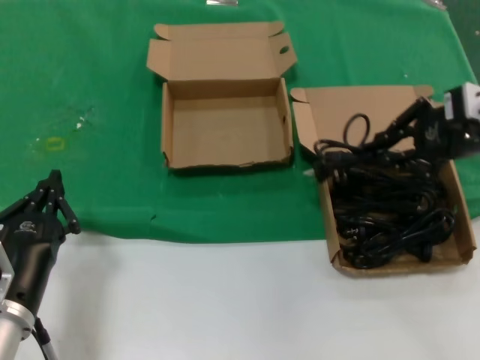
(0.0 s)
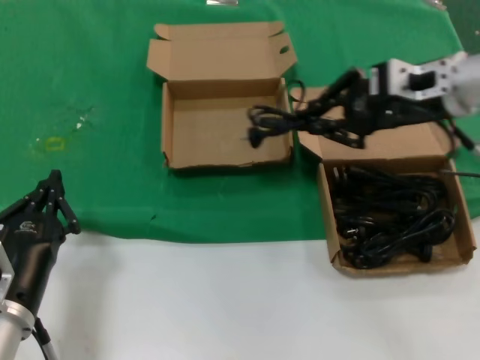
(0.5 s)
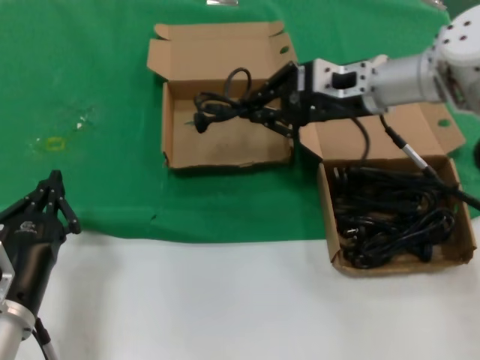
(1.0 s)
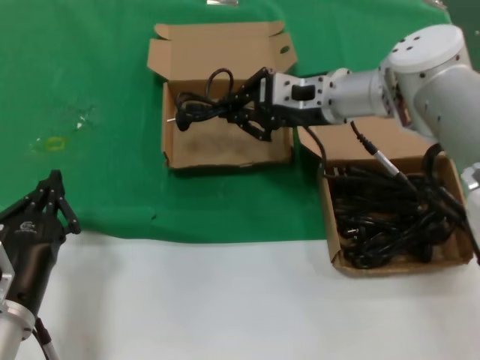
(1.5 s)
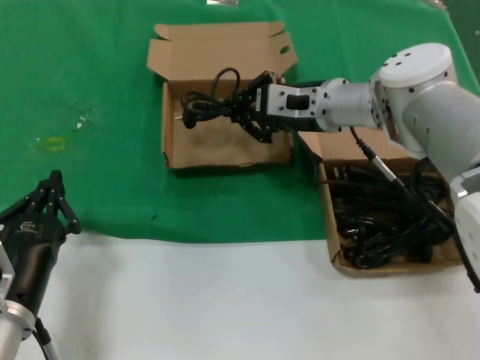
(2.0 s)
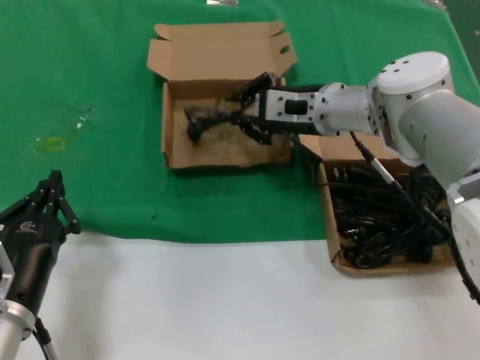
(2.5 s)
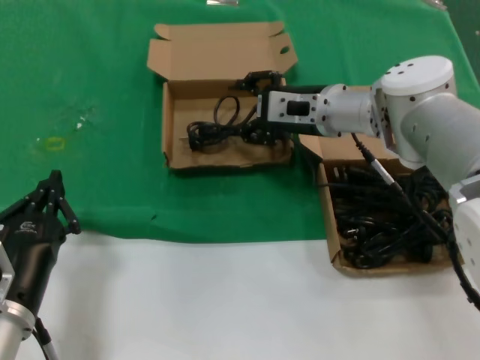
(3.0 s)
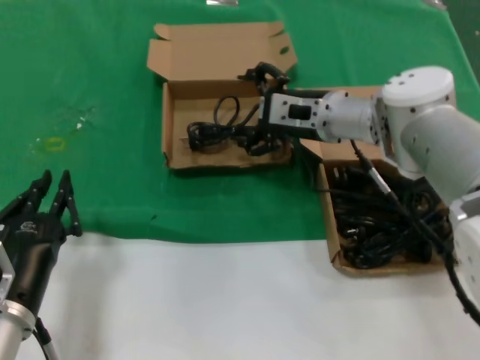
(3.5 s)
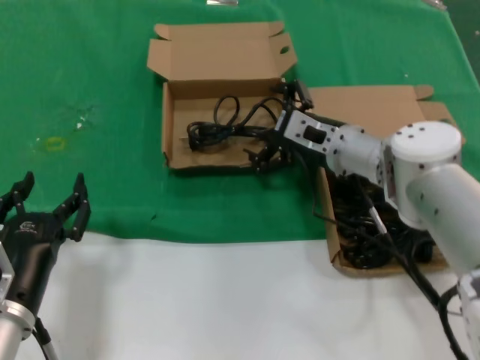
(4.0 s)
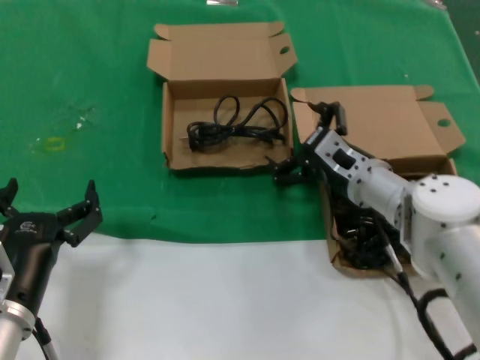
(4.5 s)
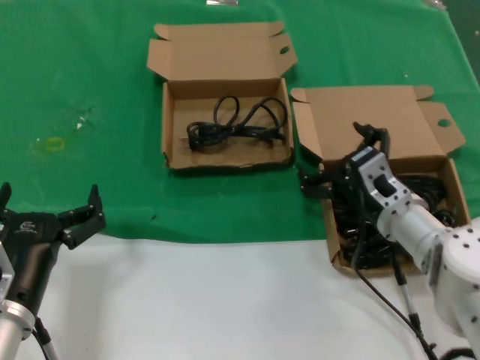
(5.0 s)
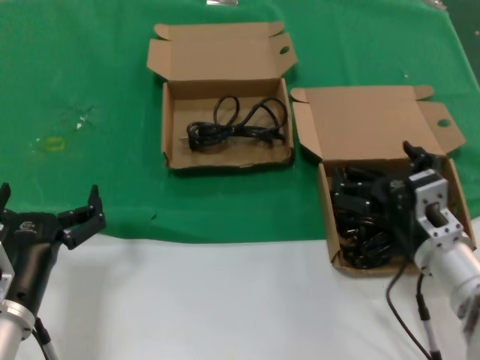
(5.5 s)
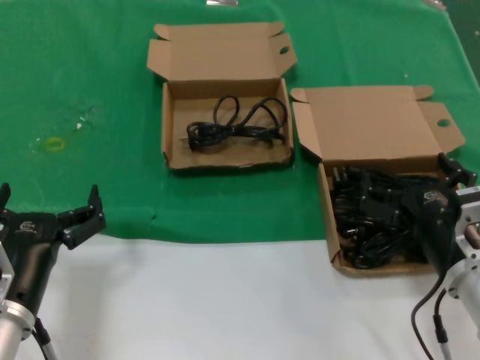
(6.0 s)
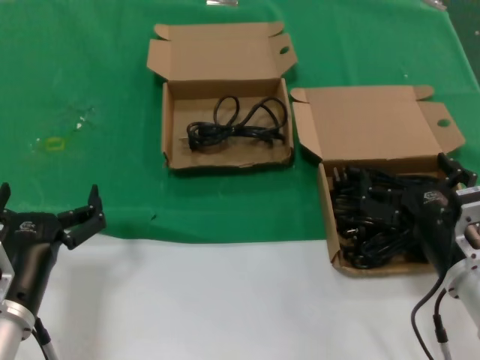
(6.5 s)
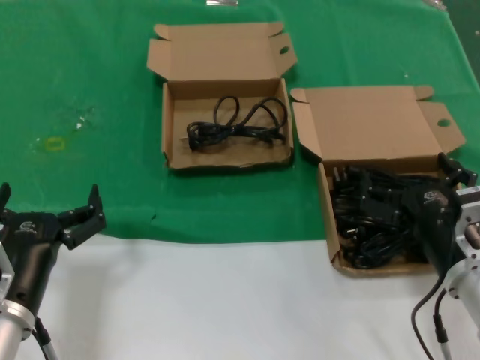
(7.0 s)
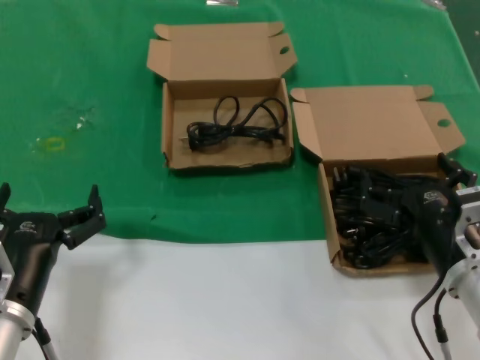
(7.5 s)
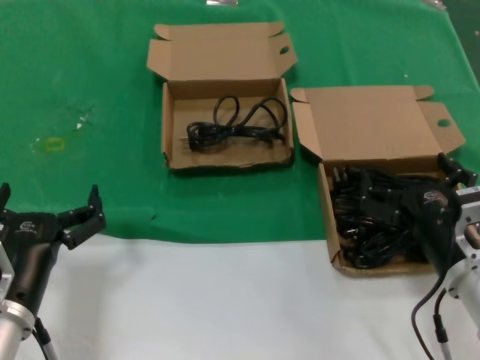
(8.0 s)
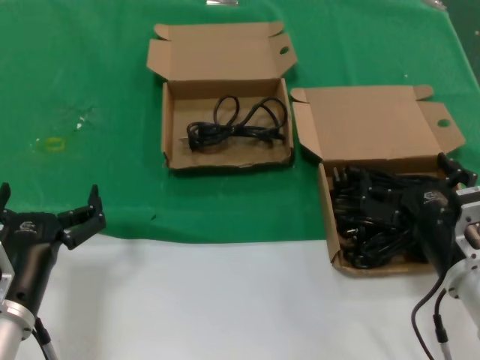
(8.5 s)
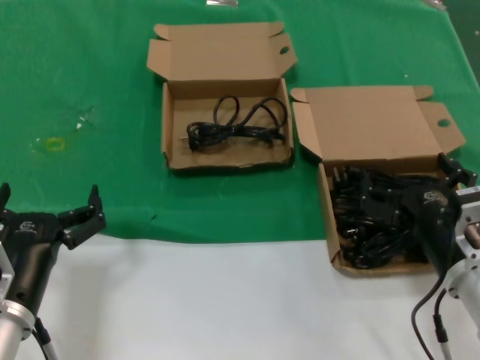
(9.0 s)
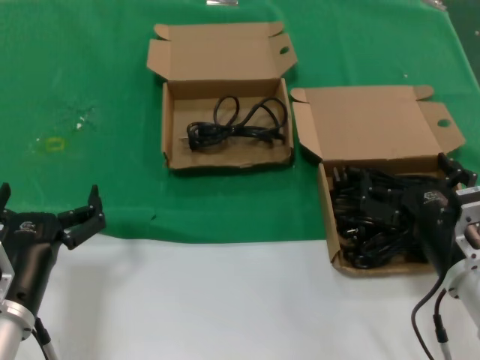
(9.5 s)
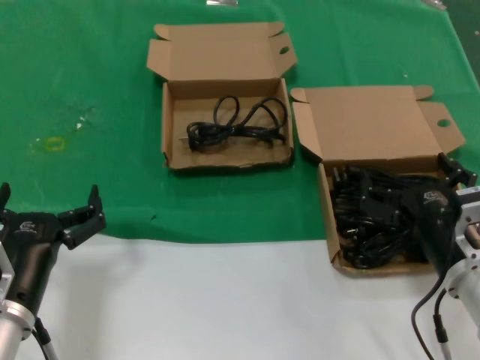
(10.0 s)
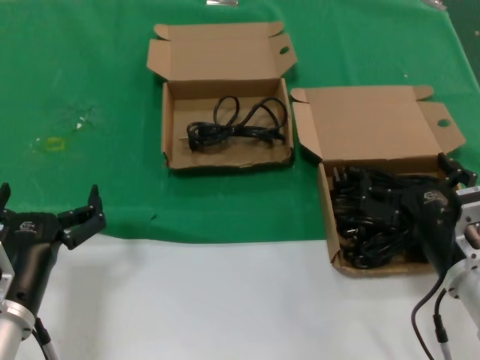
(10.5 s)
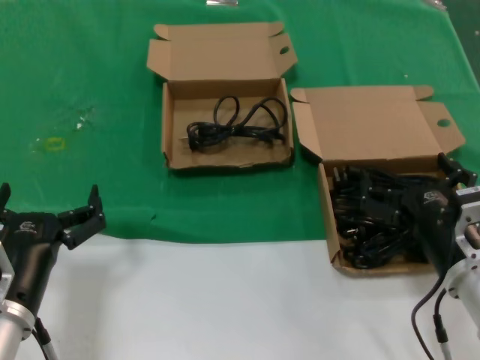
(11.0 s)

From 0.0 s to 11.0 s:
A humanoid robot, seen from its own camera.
Task of the whole recording: take the parts from the box containing them and put them into an empty box.
Step, from 0.0 s to 2.5 s: Place the data cable in the another box.
From 0.0 s to 2.0 s: The right hand travels to the left and forward by approximately 25 cm.
From 2.0 s to 3.5 s: The hands stay close to where they were, moving slightly.
From 3.5 s to 5.5 s: The right hand travels backward, downward and to the right by approximately 25 cm.
From 5.5 s to 7.5 s: The right hand travels backward by about 5 cm.
From 7.5 s to 11.0 s: Both hands stay put.

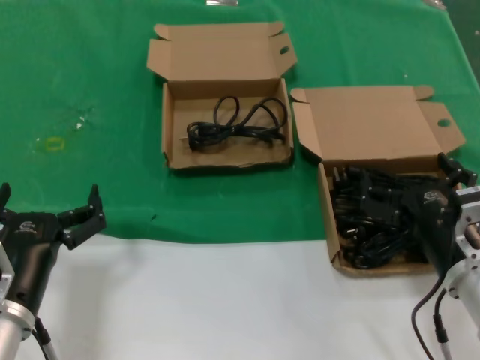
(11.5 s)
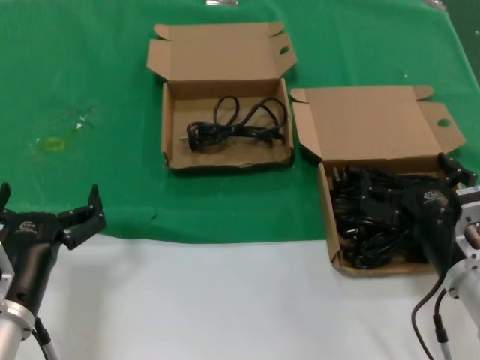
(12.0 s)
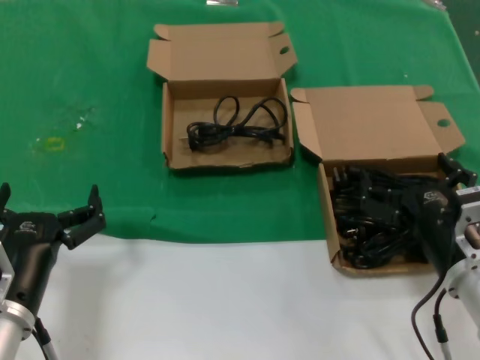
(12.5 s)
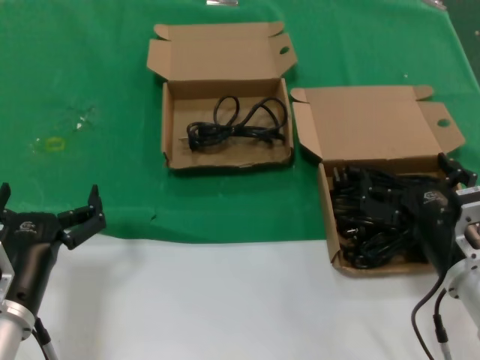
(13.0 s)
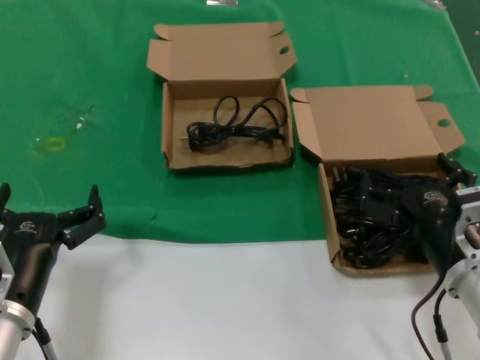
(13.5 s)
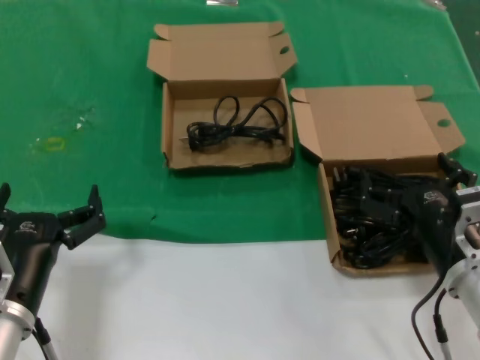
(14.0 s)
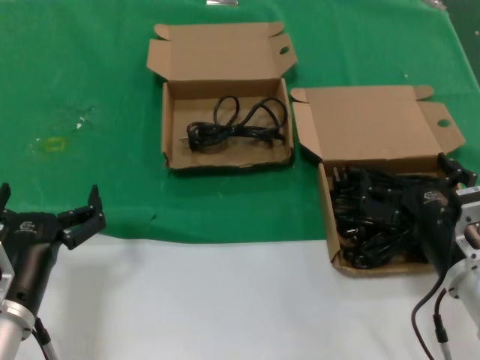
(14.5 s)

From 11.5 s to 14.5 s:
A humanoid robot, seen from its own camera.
Task of the whole recording: take the parts from the box containing them and put them into an empty box.
From 11.5 s to 14.5 s: Both hands stay about where they are.
